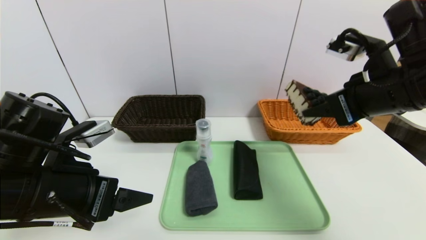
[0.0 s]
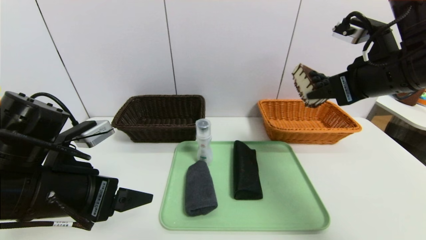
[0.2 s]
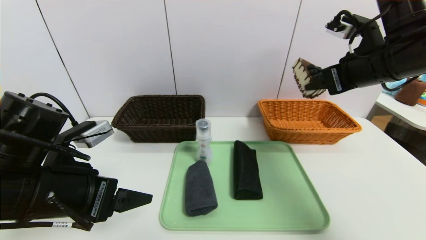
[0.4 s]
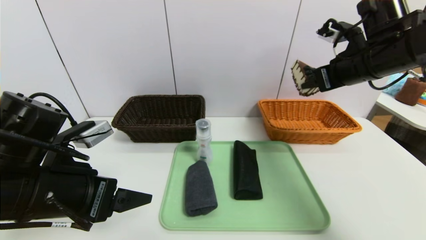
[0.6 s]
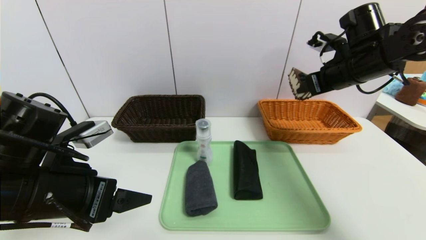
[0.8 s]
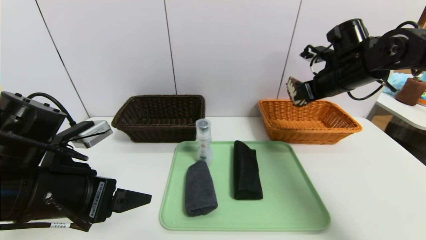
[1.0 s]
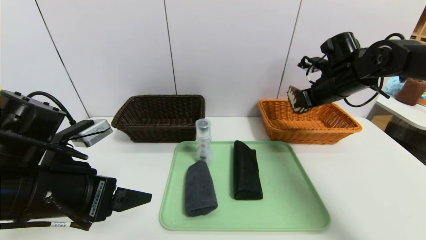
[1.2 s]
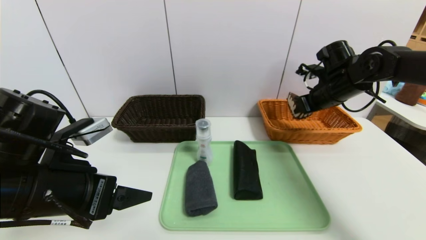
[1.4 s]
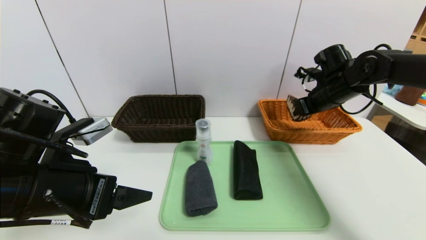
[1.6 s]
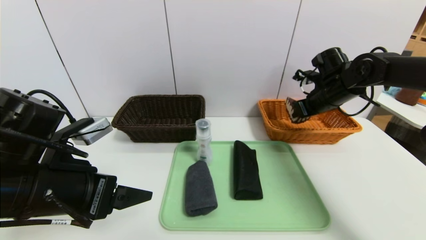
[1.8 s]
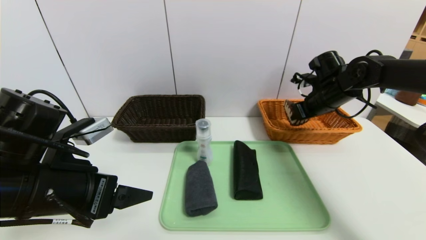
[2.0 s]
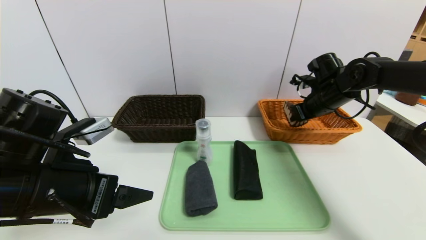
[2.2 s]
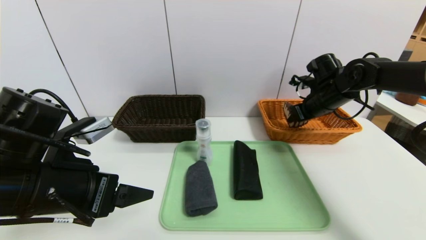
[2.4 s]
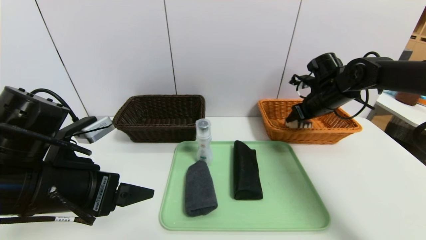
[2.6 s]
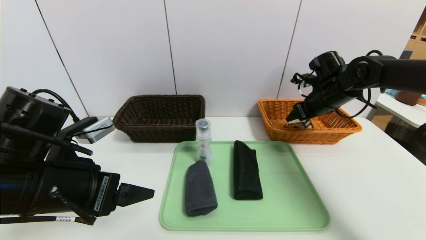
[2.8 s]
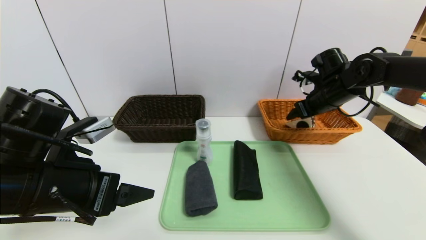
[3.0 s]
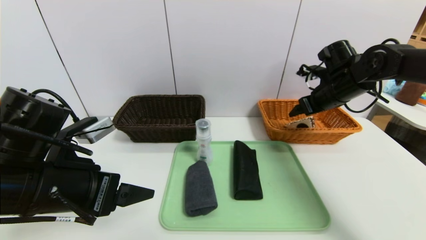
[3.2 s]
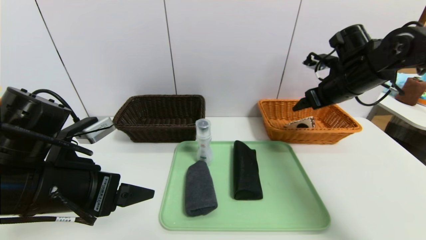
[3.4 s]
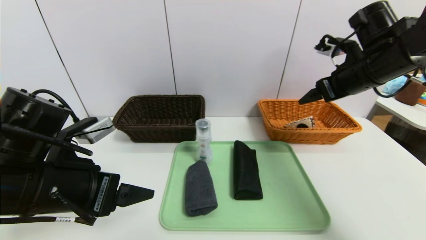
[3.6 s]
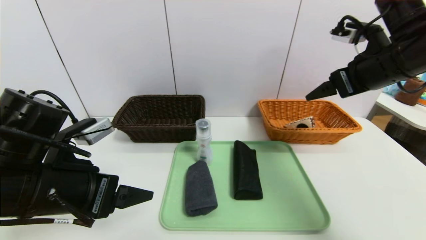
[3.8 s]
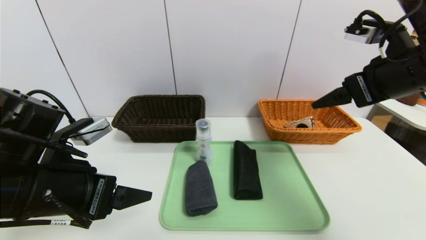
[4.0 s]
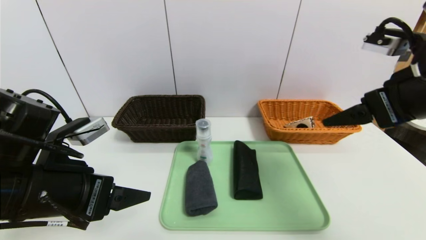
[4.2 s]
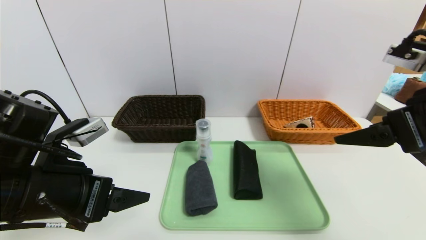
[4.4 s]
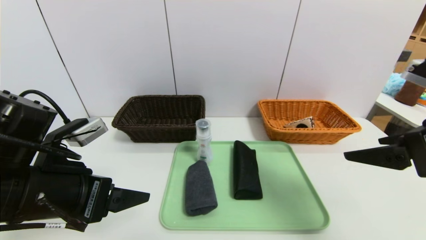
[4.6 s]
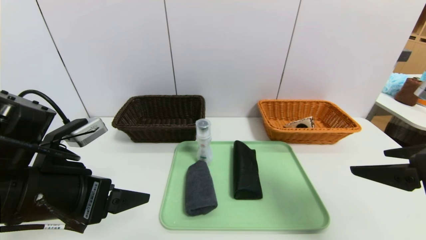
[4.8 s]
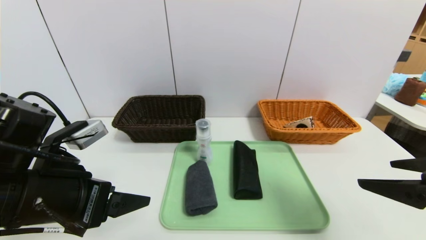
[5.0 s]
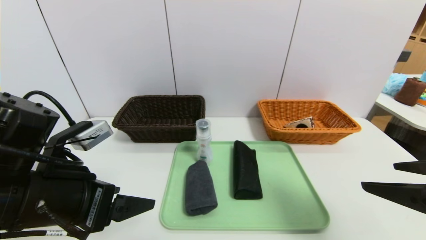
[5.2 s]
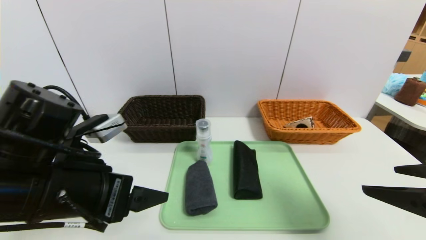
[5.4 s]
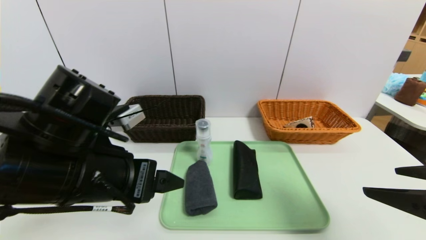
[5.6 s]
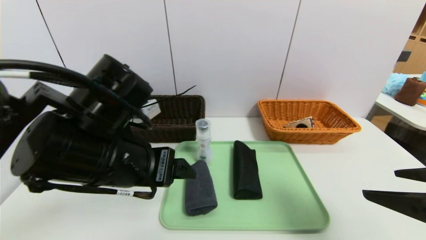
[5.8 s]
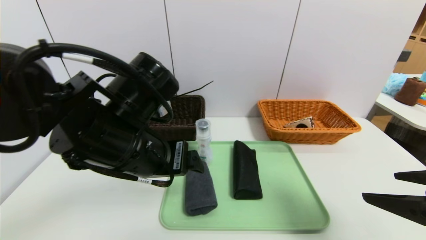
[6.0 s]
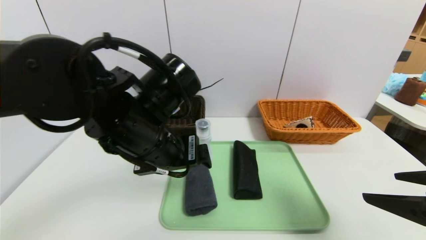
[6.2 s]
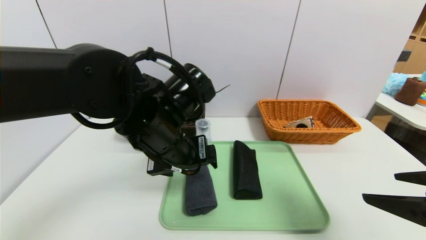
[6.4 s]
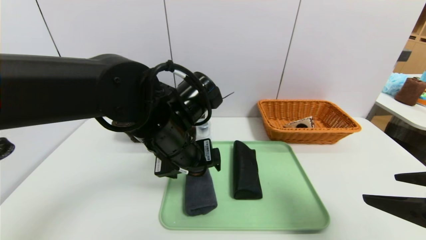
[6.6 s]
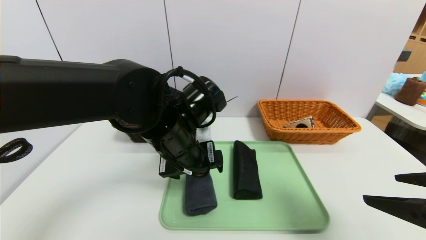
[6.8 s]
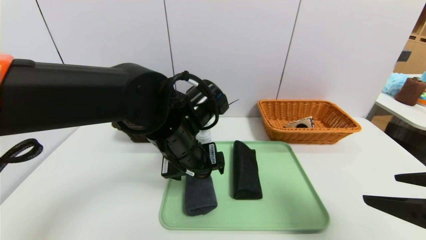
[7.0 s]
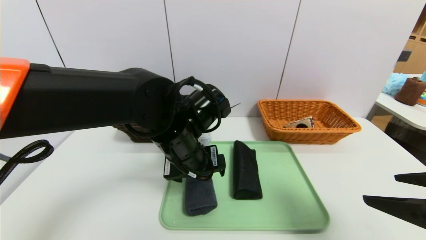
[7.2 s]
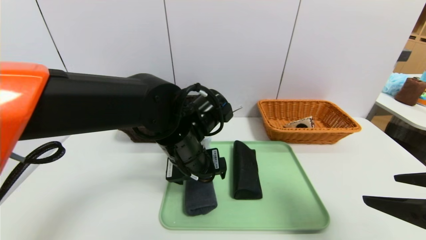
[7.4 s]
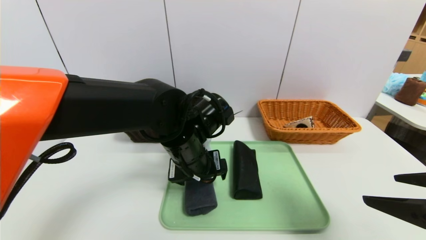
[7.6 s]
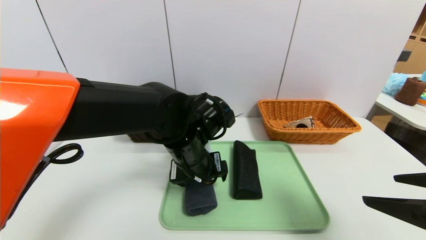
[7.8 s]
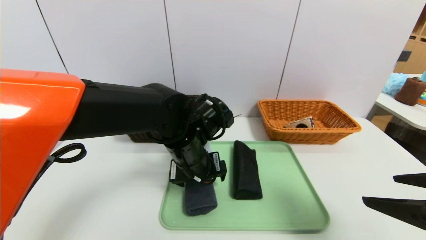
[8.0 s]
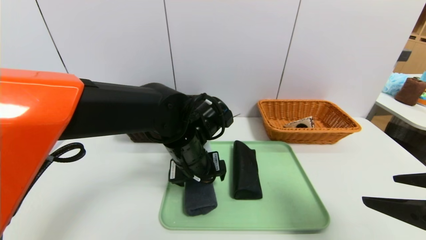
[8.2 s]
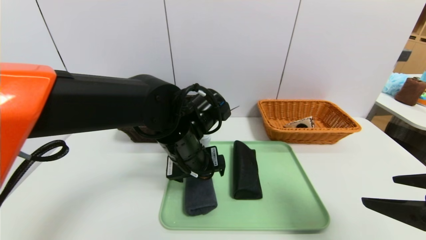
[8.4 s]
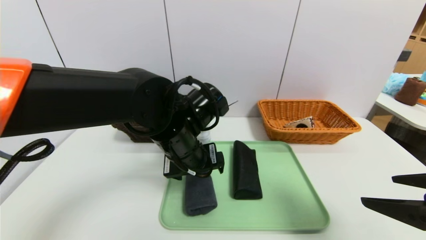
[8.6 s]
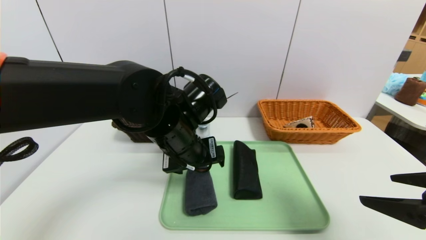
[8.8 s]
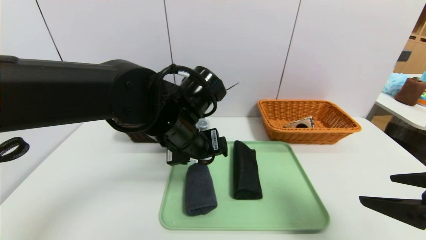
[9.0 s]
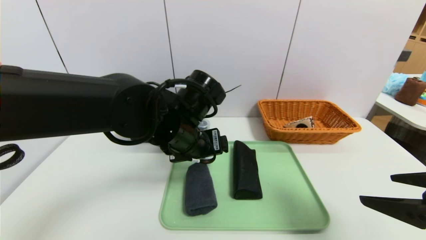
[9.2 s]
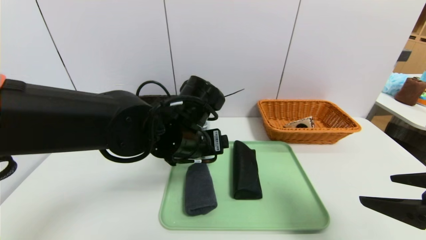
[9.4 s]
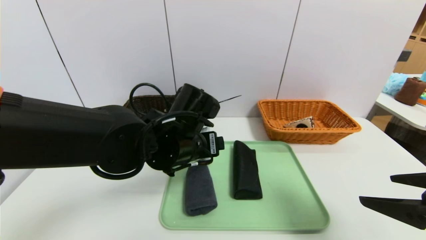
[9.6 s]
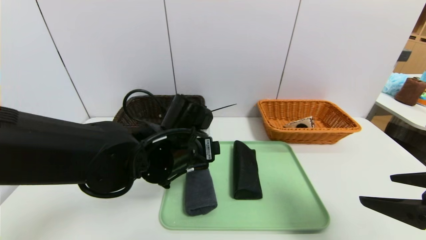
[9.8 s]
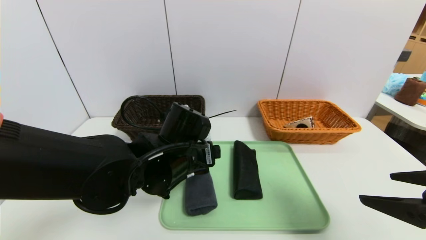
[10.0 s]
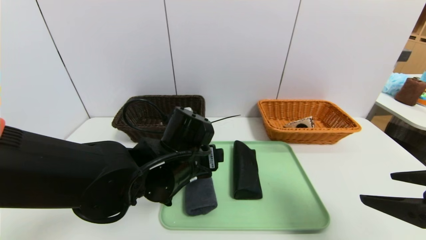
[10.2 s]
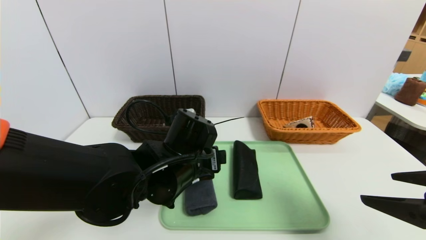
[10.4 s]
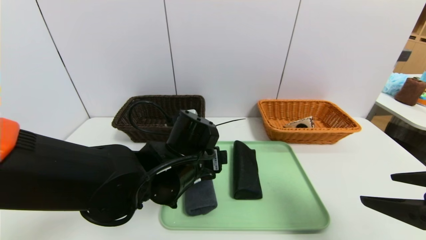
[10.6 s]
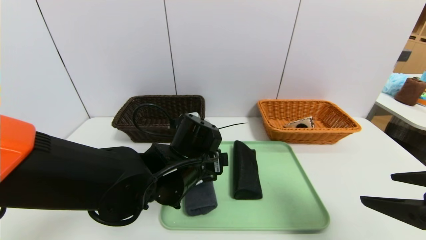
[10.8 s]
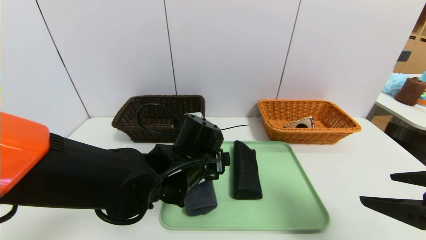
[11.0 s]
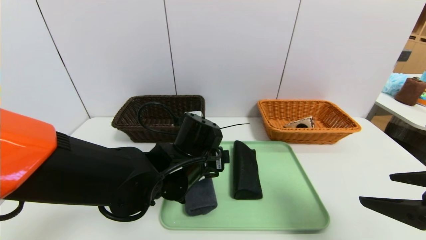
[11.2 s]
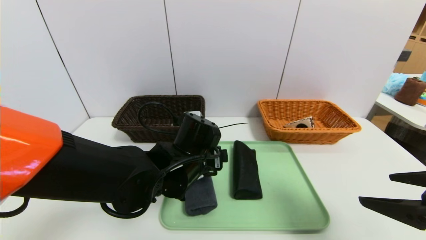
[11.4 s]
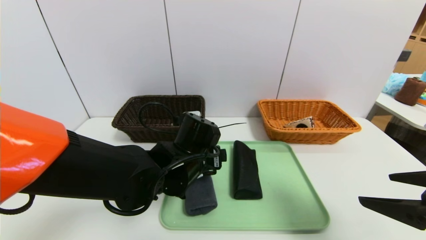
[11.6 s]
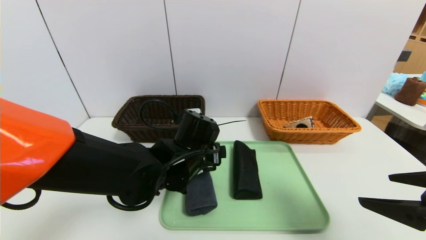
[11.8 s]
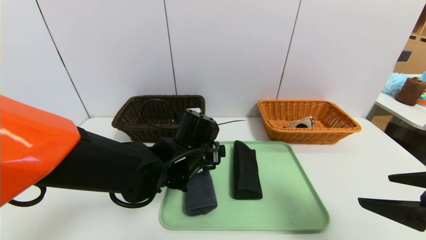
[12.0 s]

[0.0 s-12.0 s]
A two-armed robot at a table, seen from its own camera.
Task of the whole recording: place the food in the right basket with the right gripper, and place the non food items in the left basket with the left gripper.
Step, 0.0 to 3.2 s: Grasp the triangle cake and put it in the right basket.
0.0 to 1.6 s: The right gripper goes about 20 cm forward and downward.
1.6 to 3.0 s: The right gripper opens.
3.0 to 4.4 s: The right gripper heads backward, covering approximately 25 cm.
4.4 to 6.0 s: The right gripper moves backward and downward, about 10 cm. Meanwhile the left gripper moves to the right and forward, some 10 cm.
6.0 to 7.6 s: The left gripper shifts approximately 10 cm downward, to the right and forward.
7.6 to 9.0 s: The grippers move only a little.
9.0 to 10.4 s: The left gripper goes roughly 5 cm downward.
10.4 to 12.0 s: The grippers make only small movements.

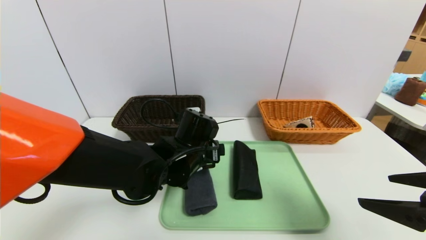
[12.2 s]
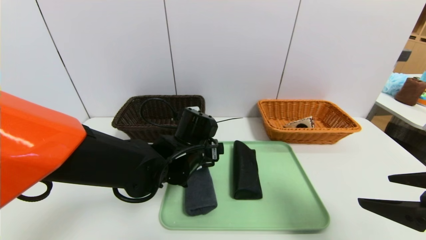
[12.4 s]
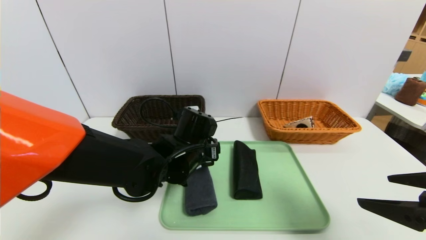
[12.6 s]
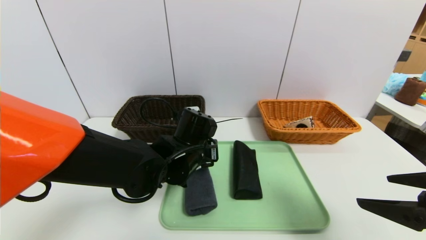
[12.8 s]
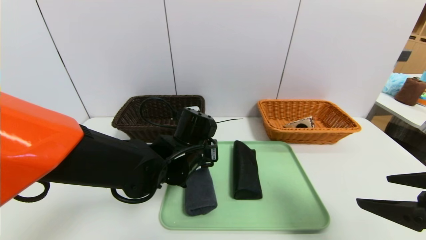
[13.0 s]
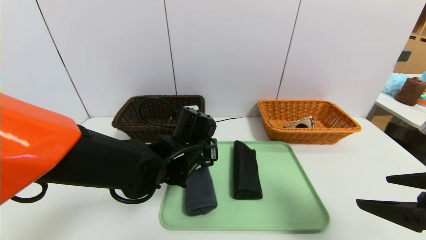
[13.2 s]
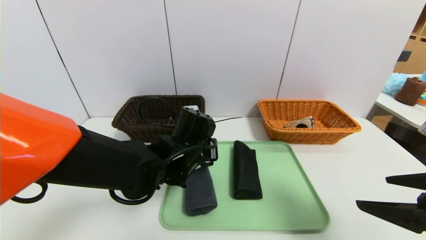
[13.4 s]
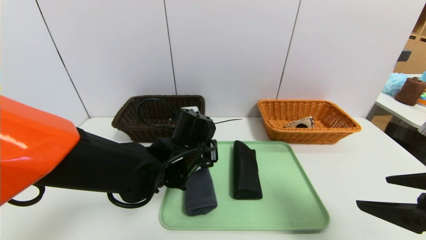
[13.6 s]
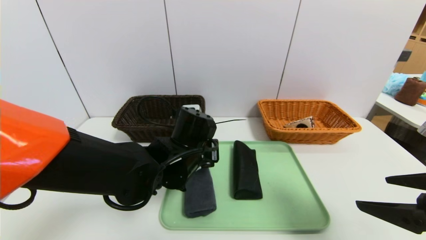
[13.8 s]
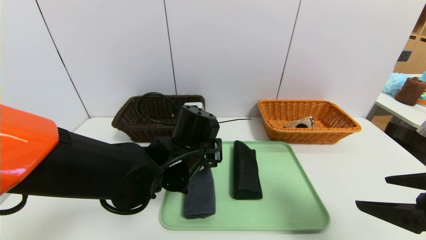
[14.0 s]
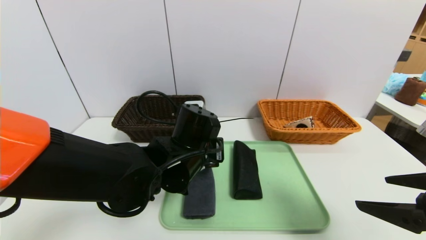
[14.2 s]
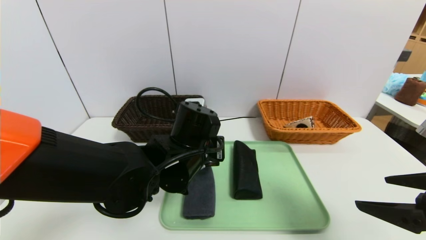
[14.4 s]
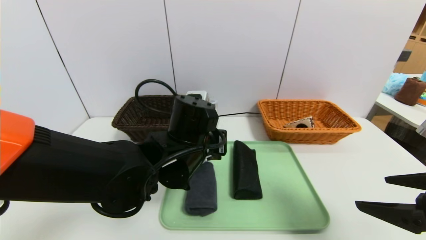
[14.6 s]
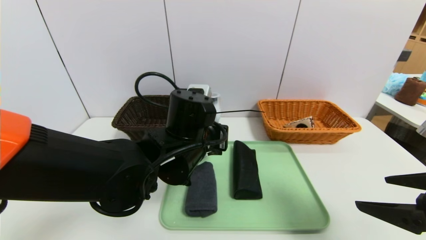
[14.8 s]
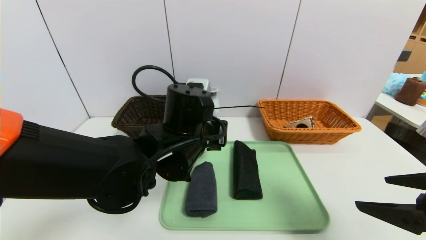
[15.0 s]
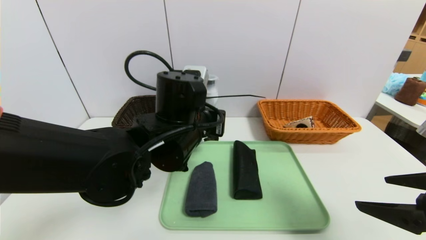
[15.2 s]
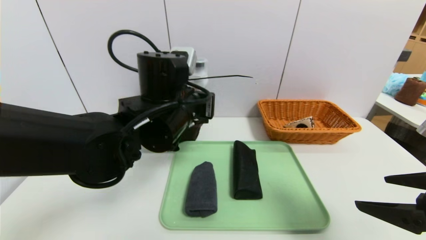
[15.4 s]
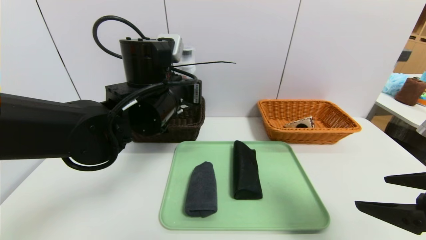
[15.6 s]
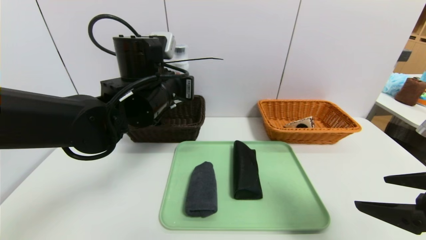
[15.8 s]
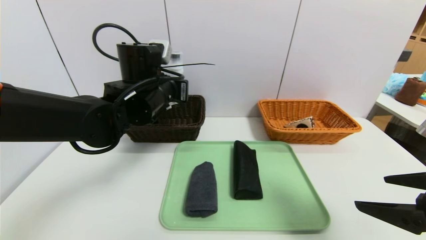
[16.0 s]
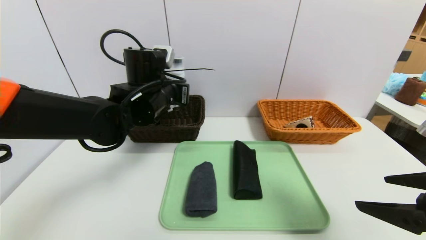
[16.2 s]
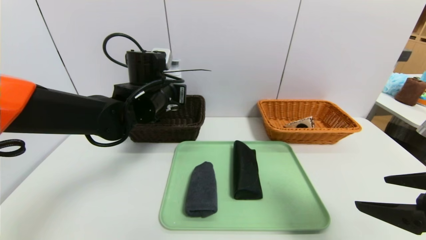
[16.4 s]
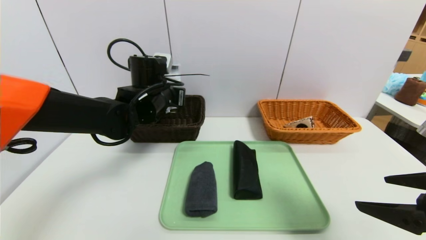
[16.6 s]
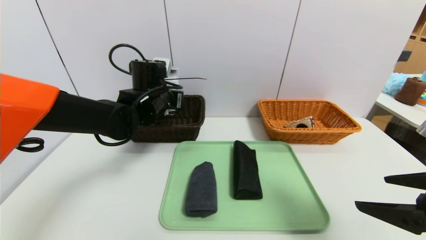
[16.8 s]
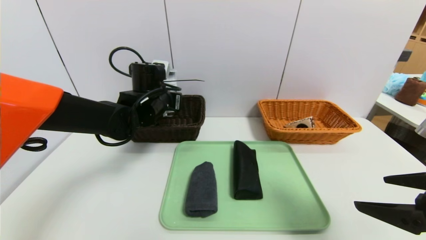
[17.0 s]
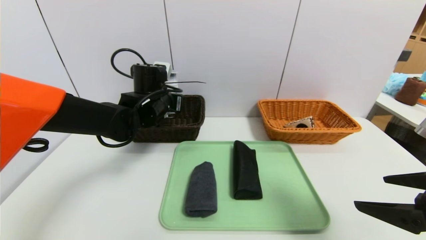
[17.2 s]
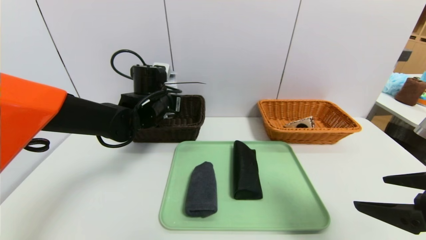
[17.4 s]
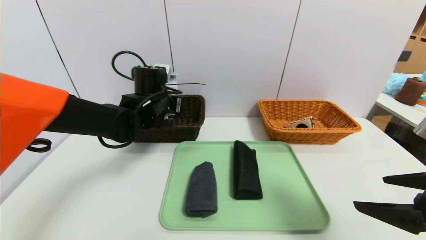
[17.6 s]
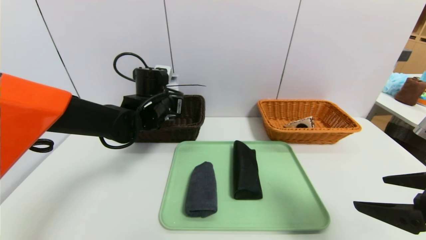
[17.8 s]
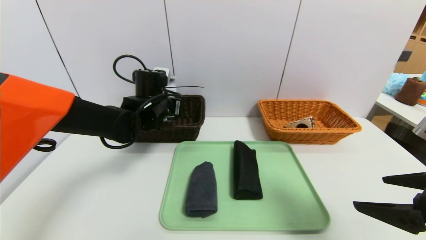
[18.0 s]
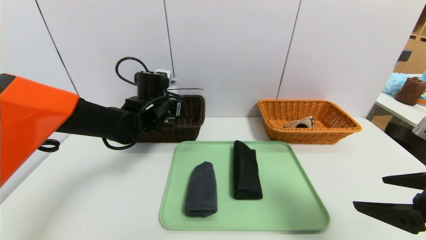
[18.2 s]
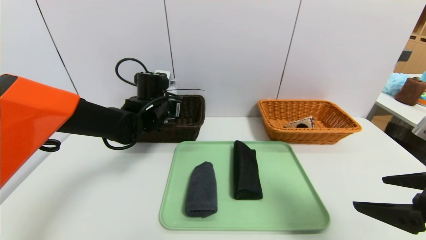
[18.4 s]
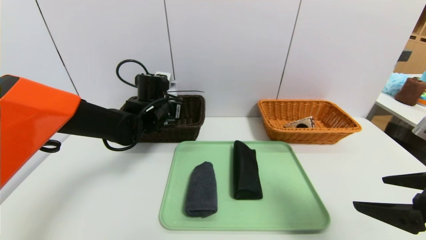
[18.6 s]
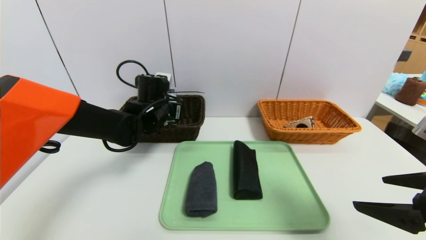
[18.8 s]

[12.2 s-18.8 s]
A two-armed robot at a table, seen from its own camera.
Task of the whole recording: place the food in the right basket with the right gripper, and place the non food items in the left basket with the left gripper.
12.2 to 13.8 s: The left gripper closes.
13.8 to 15.4 s: The left gripper moves upward, about 10 cm.
15.4 to 17.2 s: The left gripper shifts some 15 cm forward and to the left.
17.2 to 18.8 s: There are only small adjustments of the grippers.
